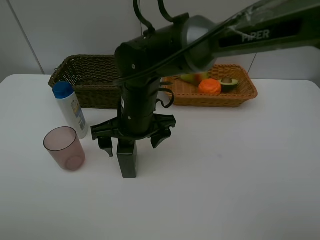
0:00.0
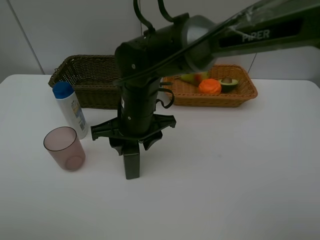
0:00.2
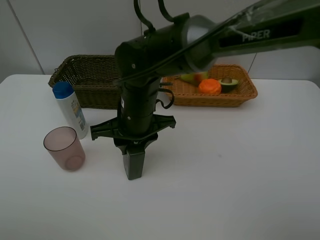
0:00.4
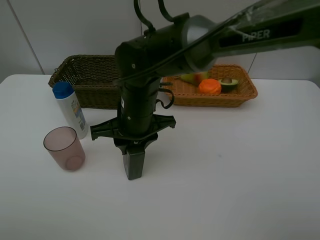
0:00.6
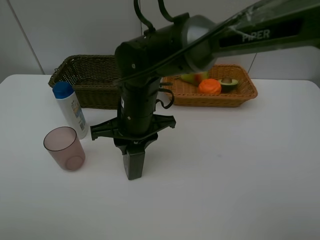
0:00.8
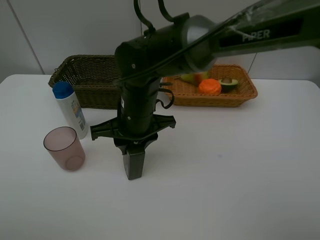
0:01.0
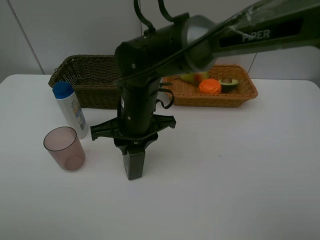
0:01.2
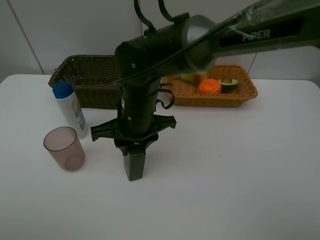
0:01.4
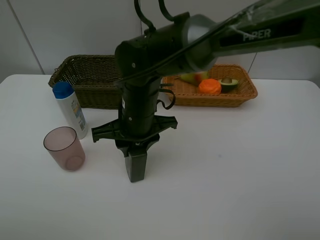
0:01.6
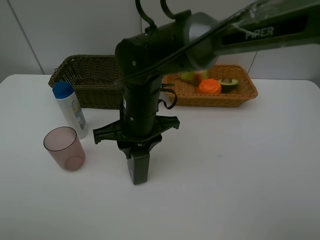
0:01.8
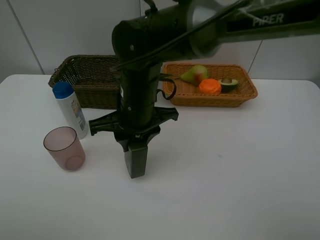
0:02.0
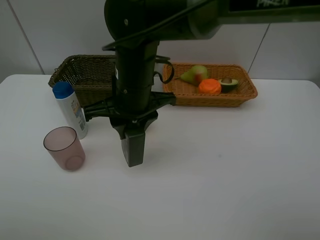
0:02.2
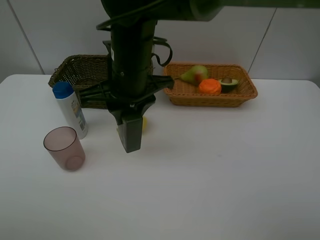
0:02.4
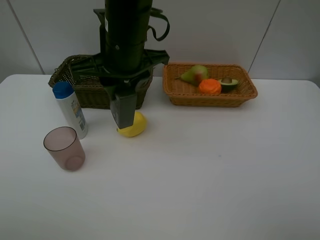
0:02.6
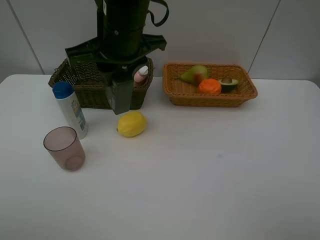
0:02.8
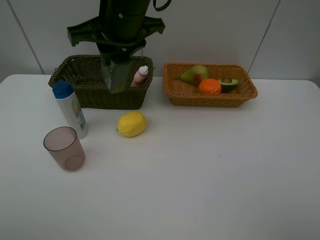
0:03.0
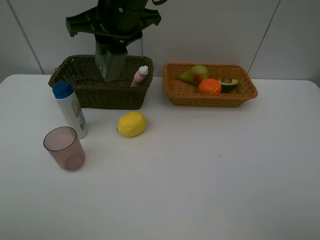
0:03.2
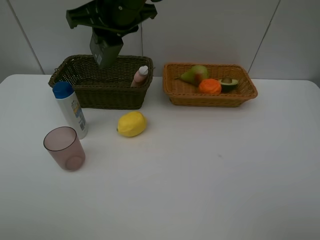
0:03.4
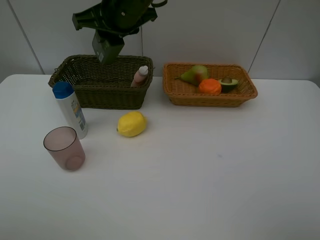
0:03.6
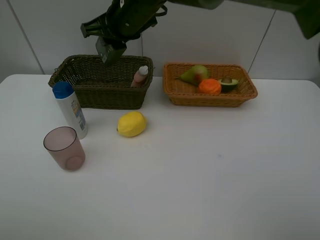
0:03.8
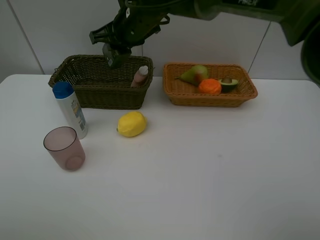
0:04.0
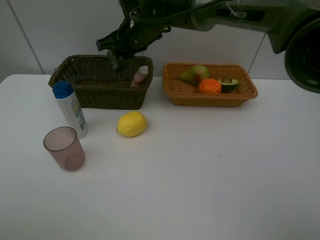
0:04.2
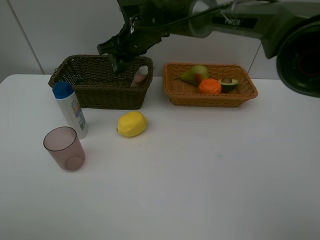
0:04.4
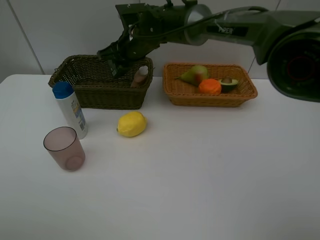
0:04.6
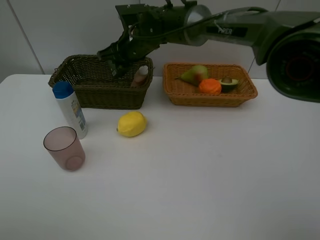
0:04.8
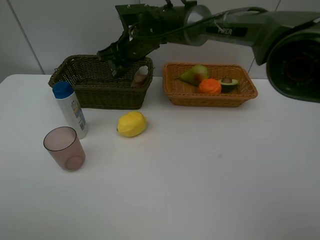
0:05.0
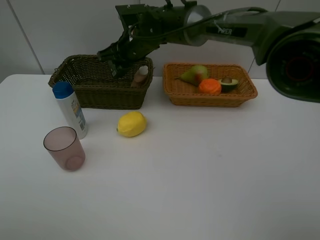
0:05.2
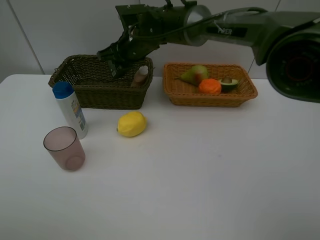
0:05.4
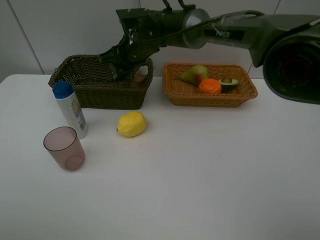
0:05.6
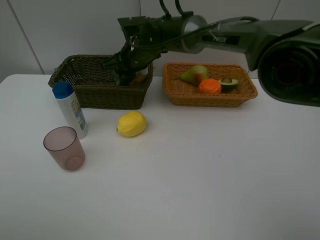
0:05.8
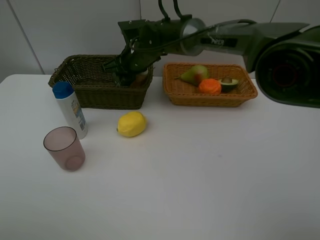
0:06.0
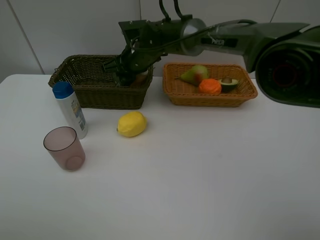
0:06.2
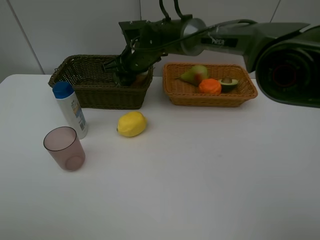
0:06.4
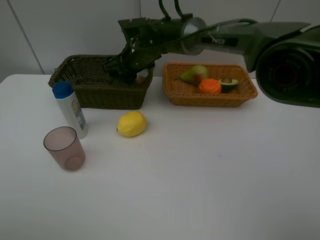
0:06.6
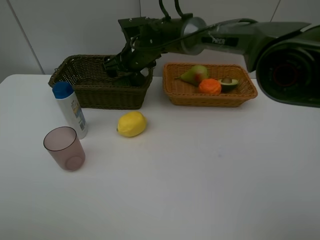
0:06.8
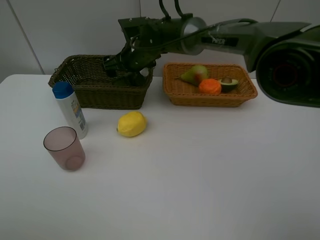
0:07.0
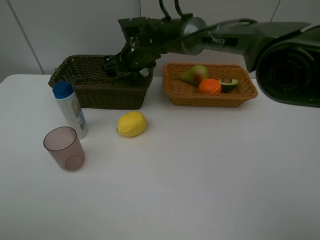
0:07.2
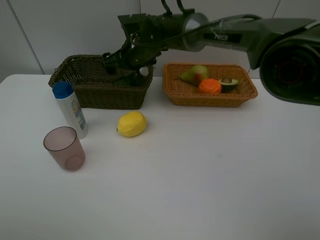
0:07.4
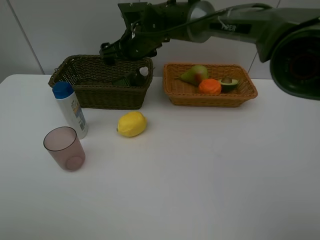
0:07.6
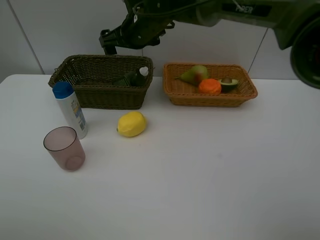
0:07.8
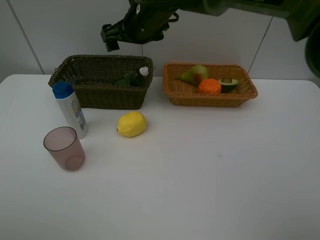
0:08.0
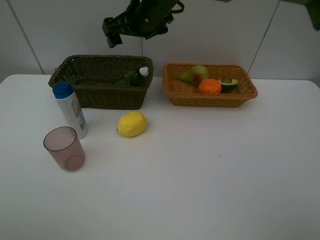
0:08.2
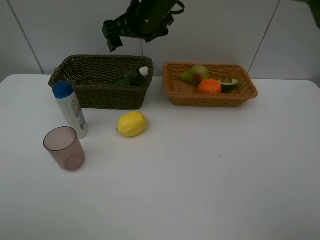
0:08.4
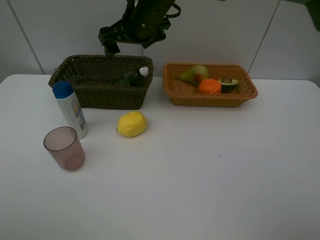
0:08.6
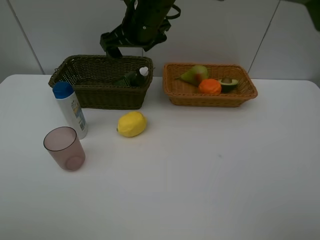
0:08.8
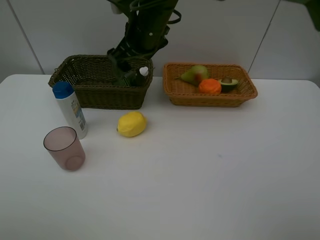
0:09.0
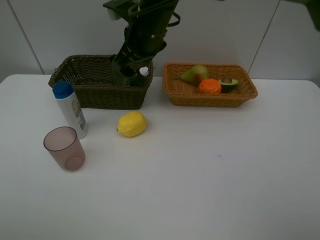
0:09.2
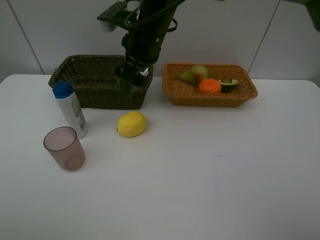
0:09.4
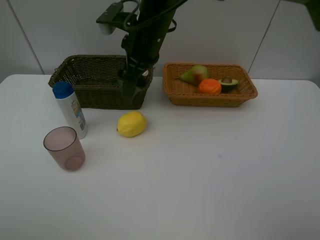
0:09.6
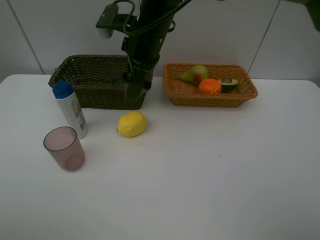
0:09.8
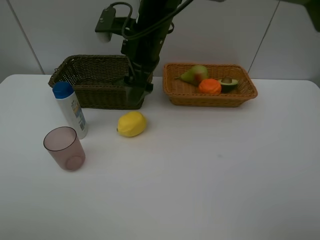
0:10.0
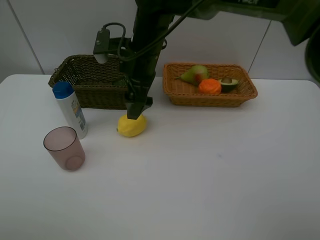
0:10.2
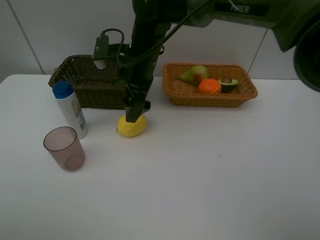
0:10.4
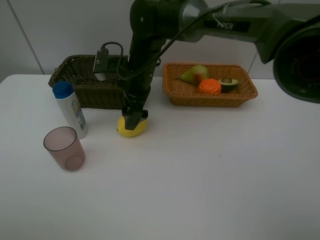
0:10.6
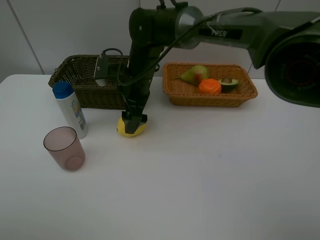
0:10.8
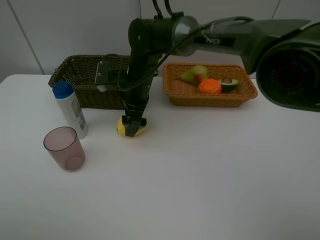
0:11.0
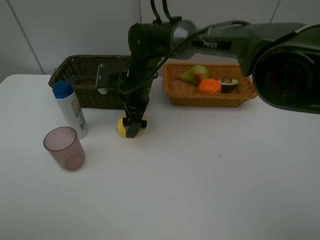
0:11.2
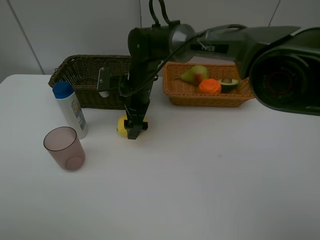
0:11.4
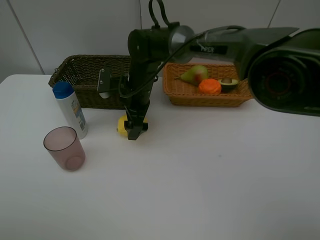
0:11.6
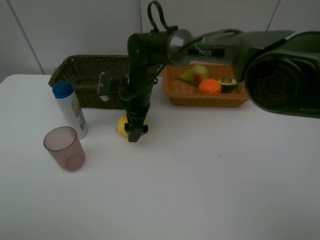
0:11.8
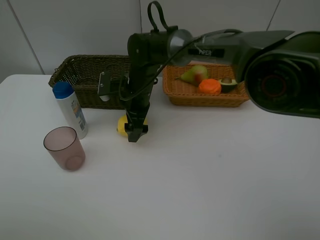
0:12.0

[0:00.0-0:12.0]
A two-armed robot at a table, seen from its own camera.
Task of the whole recording: Place multiple objects separately in different baskets.
Step, 0:00.0 to 0:02.0: Pick up the hard facial cleanser with right gripper.
Step, 0:02.2 to 0:07.6: Place the hard facial cleanser in the dark basket with right gripper.
0:00.0 to 0:01.6: The right gripper closes up.
0:01.6 to 0:03.0: The right gripper moves upward, about 15 cm.
0:03.0 to 0:04.4: The right gripper heads forward and downward, covering about 15 cm.
0:04.4 to 0:06.0: The grippers make only small movements.
0:06.0 to 0:07.6: The right gripper opens its fingers.
0:07.6 to 0:09.0: The right gripper shifts roughly 10 cm backward and upward.
0:09.0 to 0:10.4: The right gripper moves downward, approximately 5 cm.
0:10.4 to 0:12.0: The right gripper is displaced downward by about 10 cm.

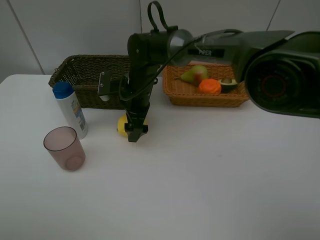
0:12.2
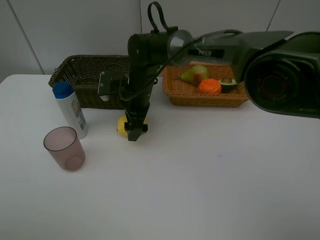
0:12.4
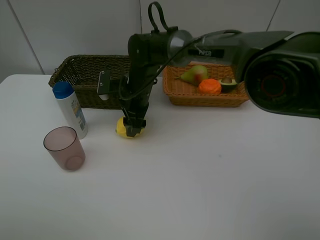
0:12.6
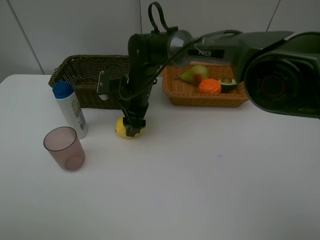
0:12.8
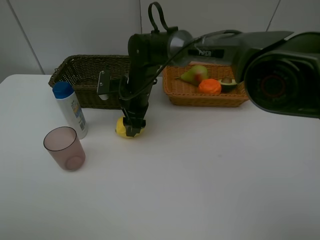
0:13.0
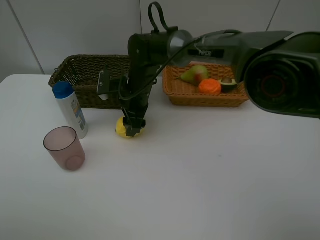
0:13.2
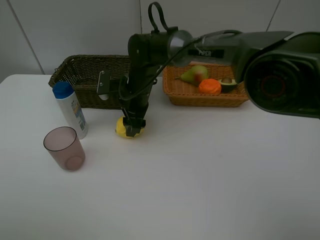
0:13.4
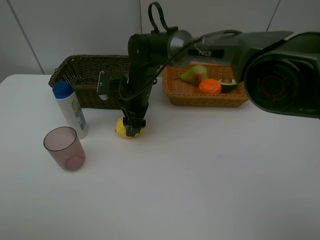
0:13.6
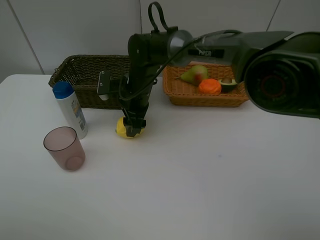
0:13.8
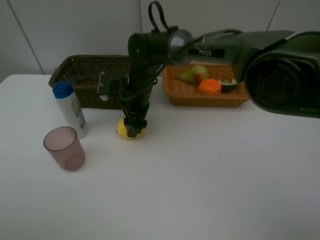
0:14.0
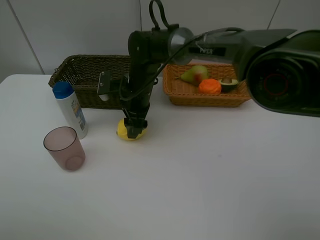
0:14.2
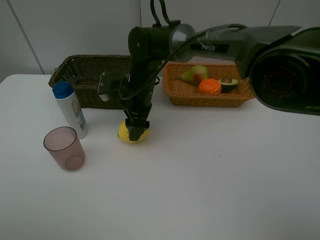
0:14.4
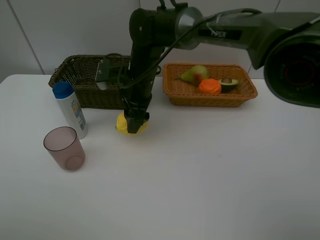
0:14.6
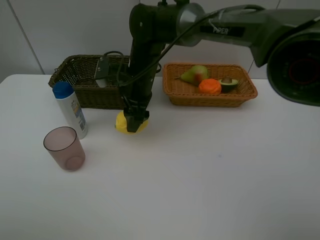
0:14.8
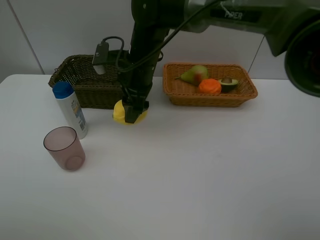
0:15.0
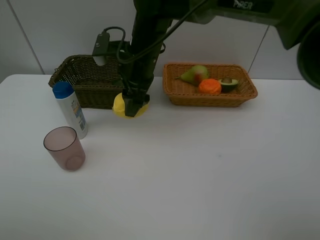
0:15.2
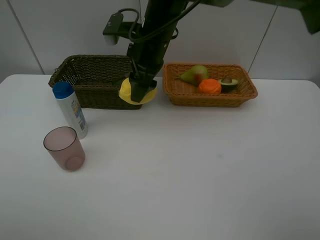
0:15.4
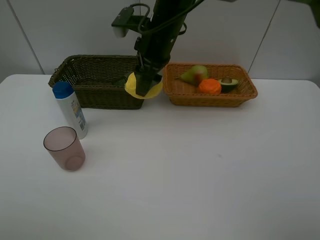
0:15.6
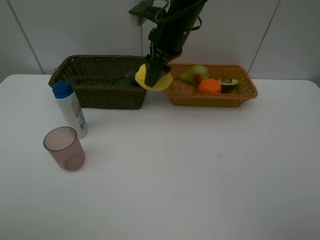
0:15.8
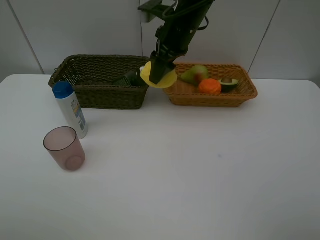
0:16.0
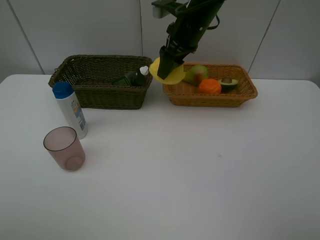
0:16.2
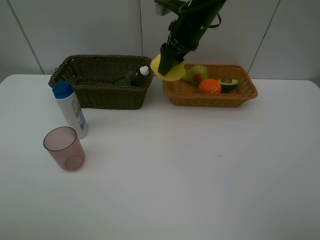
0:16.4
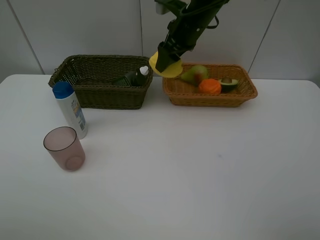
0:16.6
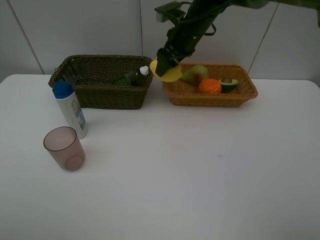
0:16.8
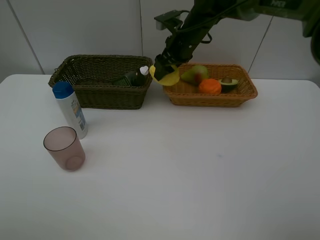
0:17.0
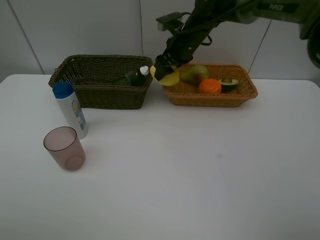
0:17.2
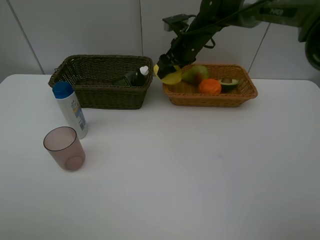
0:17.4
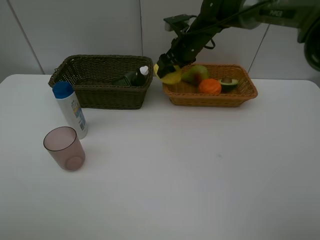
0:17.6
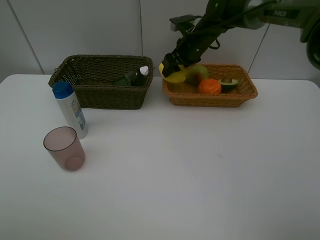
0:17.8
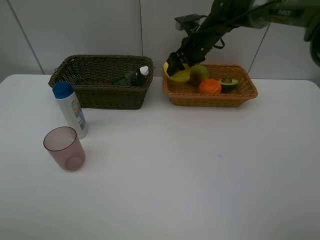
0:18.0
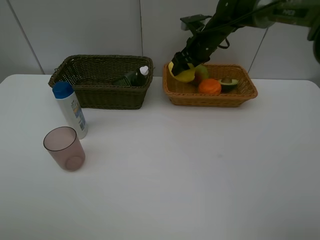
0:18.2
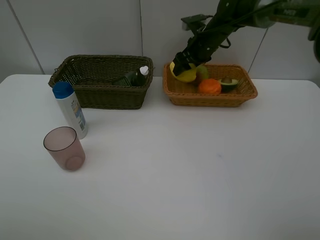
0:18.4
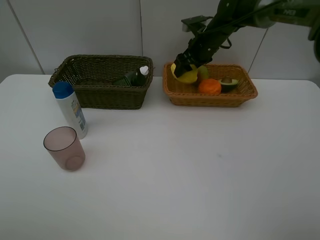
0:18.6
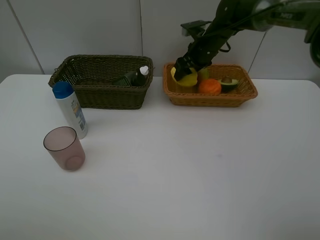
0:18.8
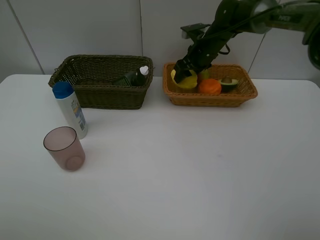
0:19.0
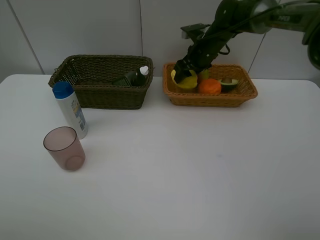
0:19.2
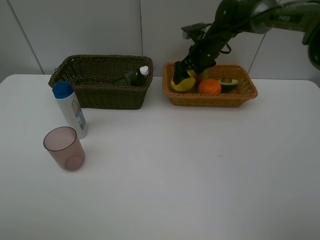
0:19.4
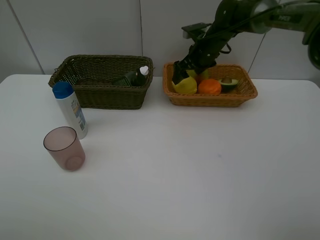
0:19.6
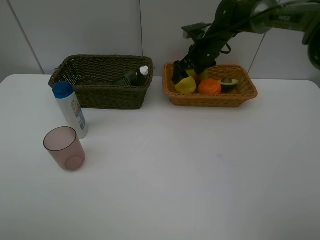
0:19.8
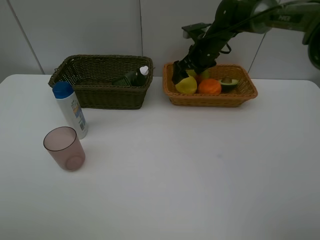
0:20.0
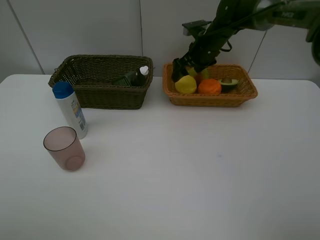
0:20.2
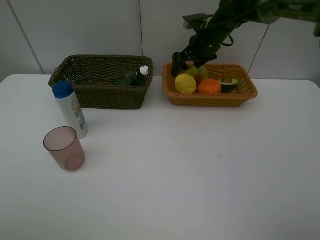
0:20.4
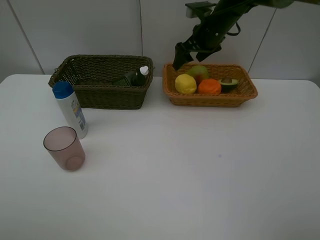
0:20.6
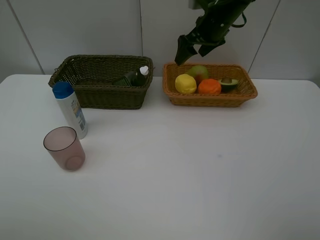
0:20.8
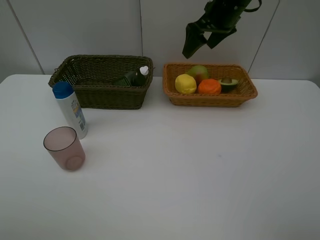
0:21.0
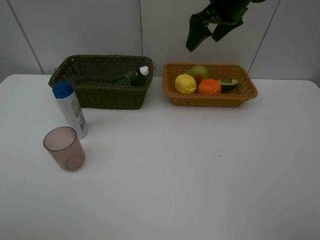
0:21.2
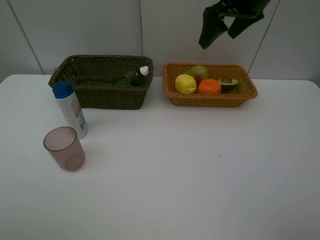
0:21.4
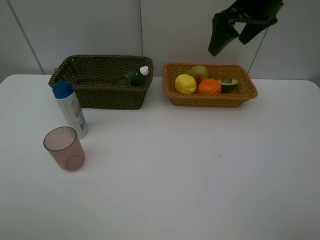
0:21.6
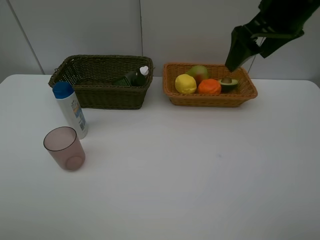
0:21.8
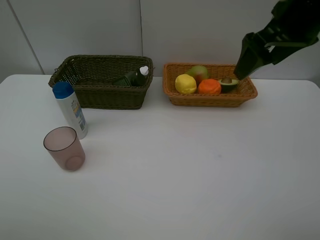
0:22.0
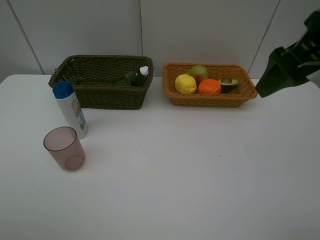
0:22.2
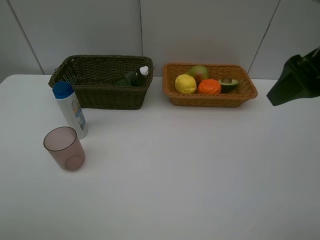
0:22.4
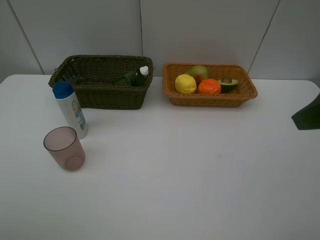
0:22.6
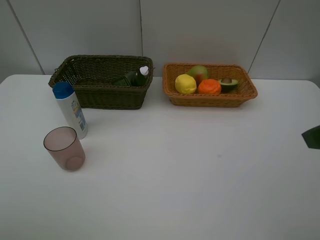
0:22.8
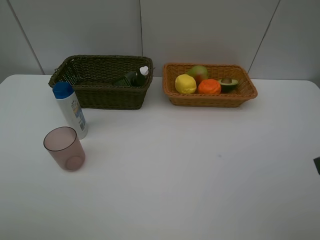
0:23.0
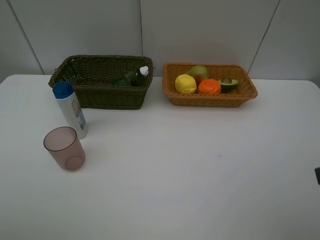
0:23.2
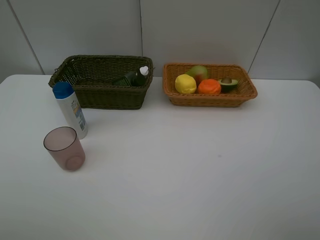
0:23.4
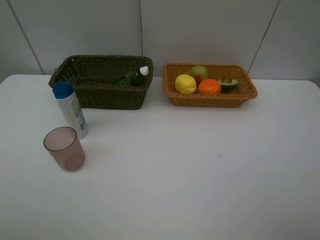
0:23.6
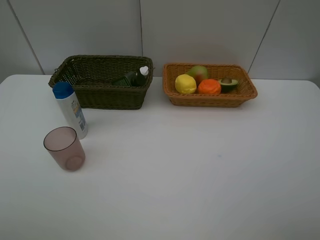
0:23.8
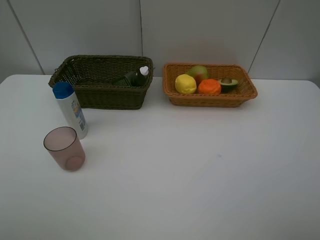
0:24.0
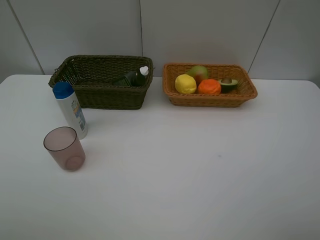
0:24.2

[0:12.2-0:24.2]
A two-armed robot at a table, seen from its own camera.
Task of the whole recording: Place multiple objects separately in different baskets.
Step, 0:12.2 to 0:14.6: Pick up the lemon with right gripper.
Step, 0:14.8 to 0:20.4: Place the lemon in the light basket with right gripper.
0:13.8 to 0:15.2: The right gripper is displaced upward by approximately 10 cm.
0:15.2 to 0:16.6: The right gripper travels to the right and forward by approximately 15 cm.
0:16.6 to 0:18.2: The right gripper moves downward, forward and to the right, some 10 cm.
0:18.2 to 0:19.8: The right gripper opens its fingers.
0:19.8 to 0:21.2: The right gripper heads upward and backward, covering some 15 cm.
0:21.2 to 0:22.6: The right gripper shifts about 30 cm backward.
0:22.6 to 0:24.2: The right gripper heads backward, covering approximately 15 cm.
